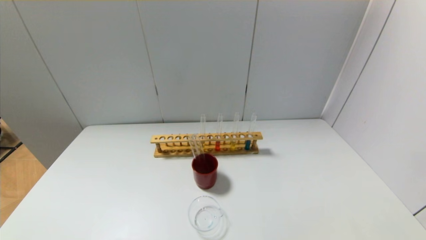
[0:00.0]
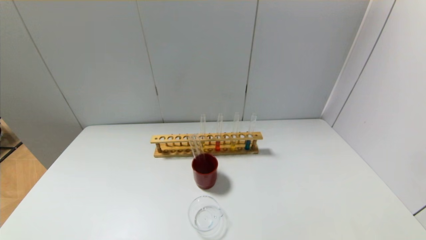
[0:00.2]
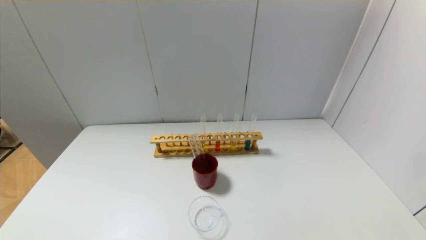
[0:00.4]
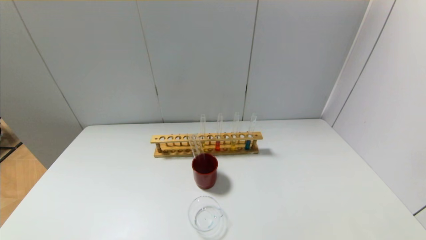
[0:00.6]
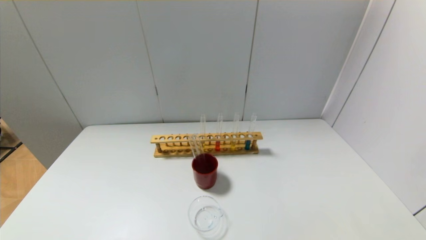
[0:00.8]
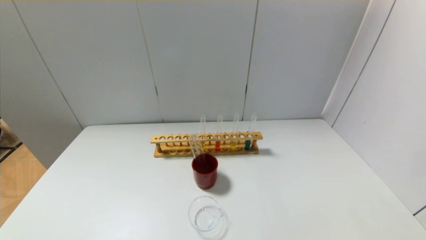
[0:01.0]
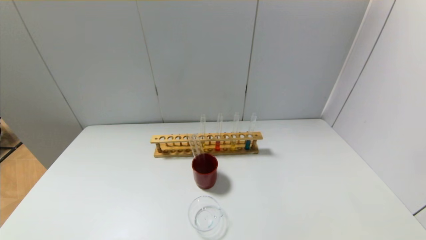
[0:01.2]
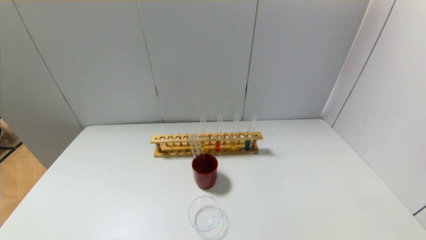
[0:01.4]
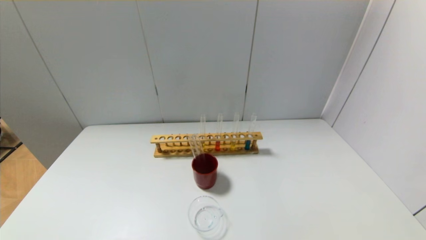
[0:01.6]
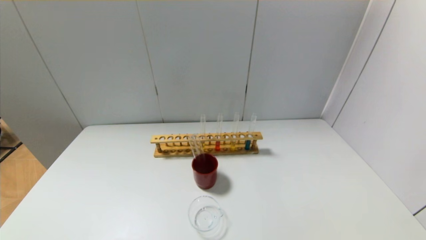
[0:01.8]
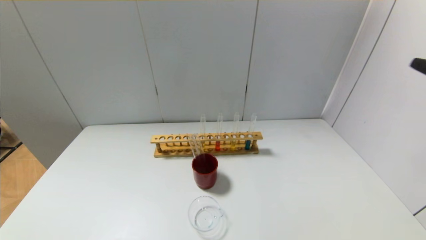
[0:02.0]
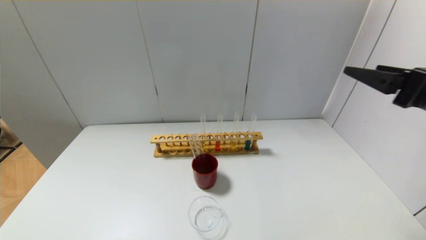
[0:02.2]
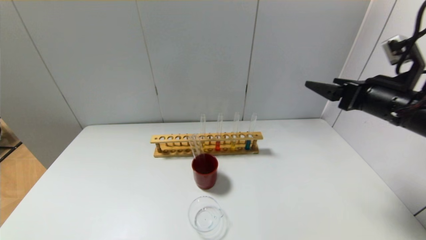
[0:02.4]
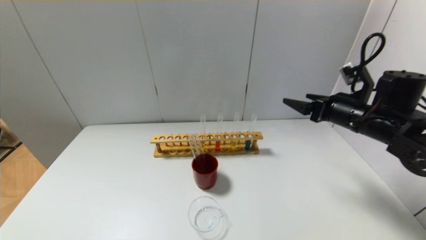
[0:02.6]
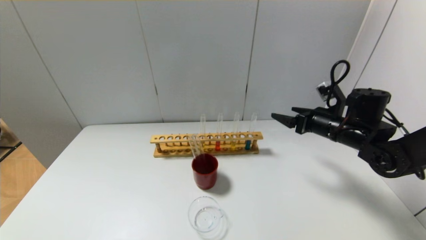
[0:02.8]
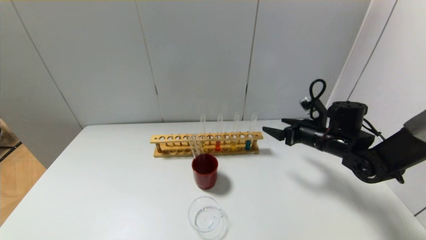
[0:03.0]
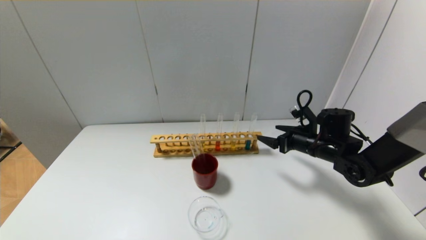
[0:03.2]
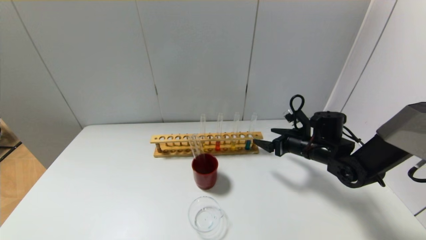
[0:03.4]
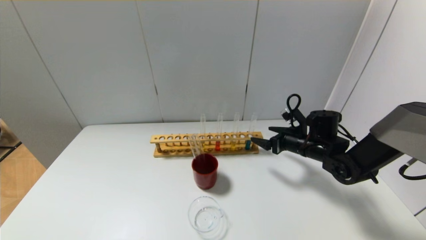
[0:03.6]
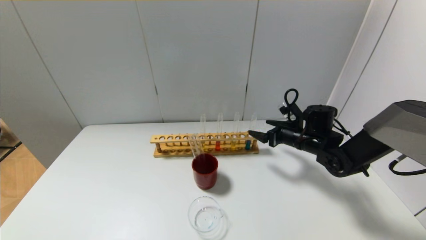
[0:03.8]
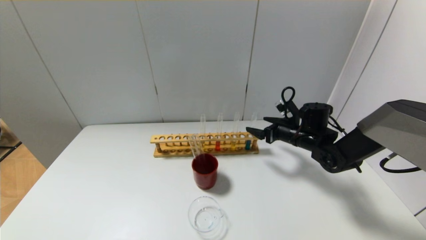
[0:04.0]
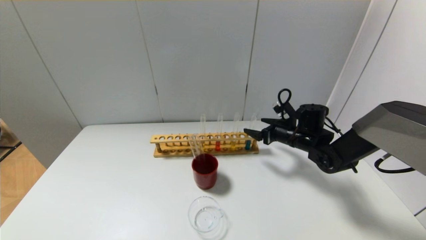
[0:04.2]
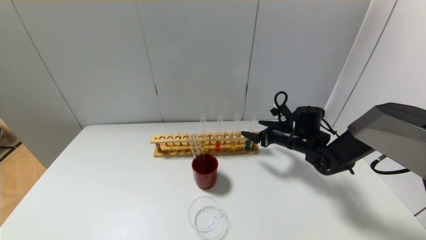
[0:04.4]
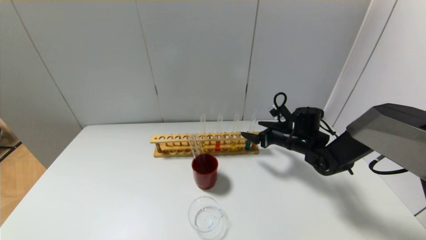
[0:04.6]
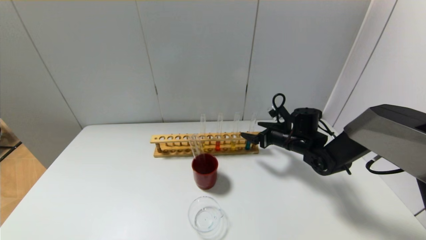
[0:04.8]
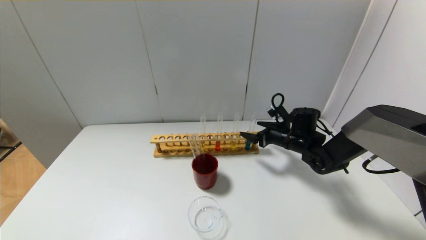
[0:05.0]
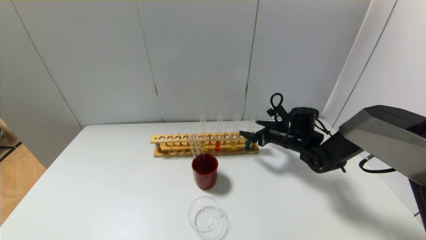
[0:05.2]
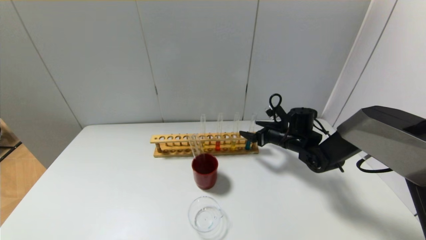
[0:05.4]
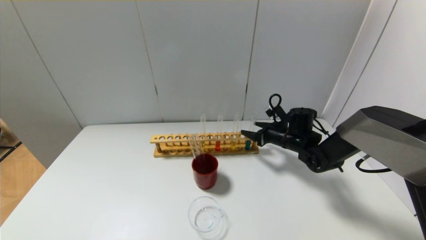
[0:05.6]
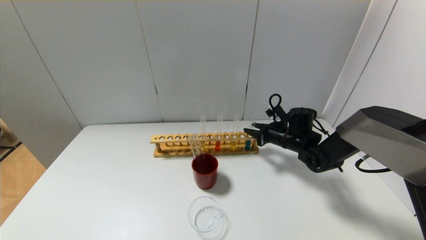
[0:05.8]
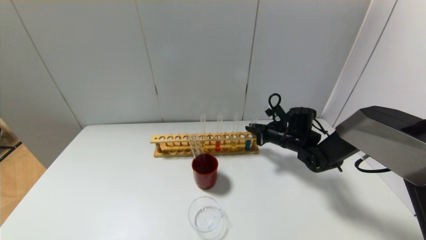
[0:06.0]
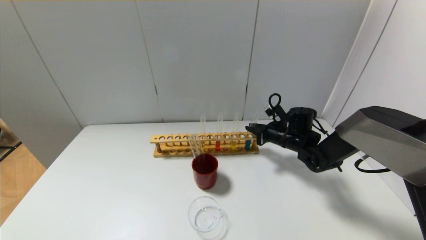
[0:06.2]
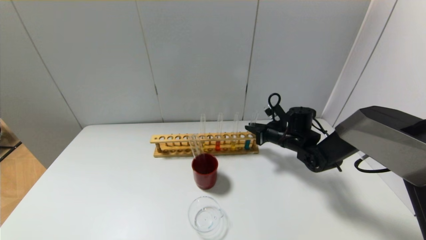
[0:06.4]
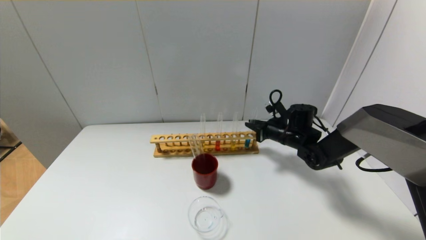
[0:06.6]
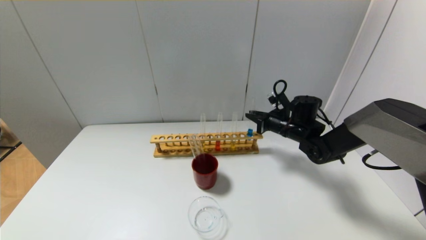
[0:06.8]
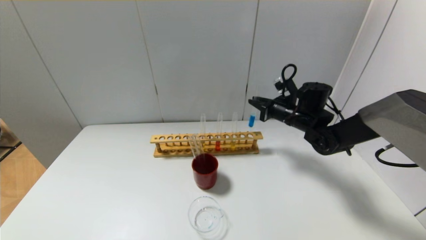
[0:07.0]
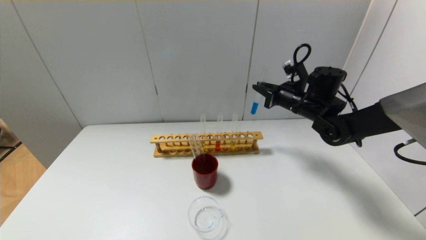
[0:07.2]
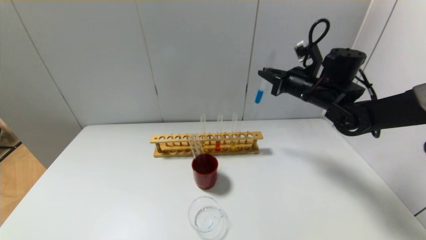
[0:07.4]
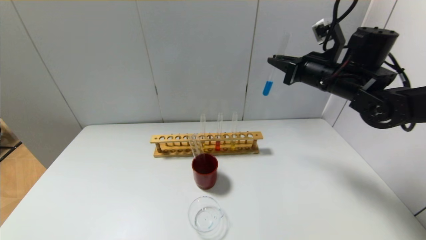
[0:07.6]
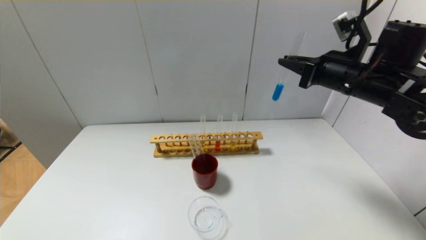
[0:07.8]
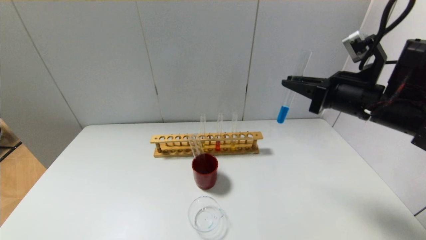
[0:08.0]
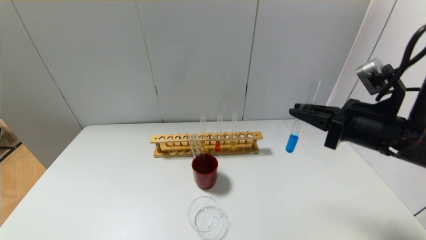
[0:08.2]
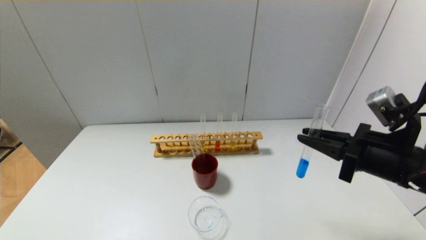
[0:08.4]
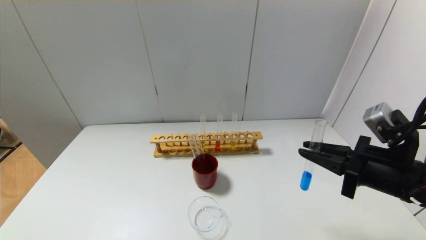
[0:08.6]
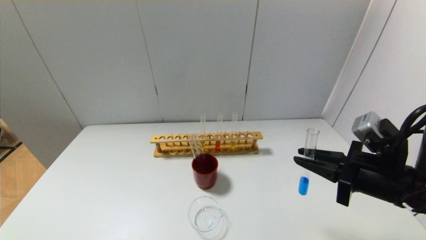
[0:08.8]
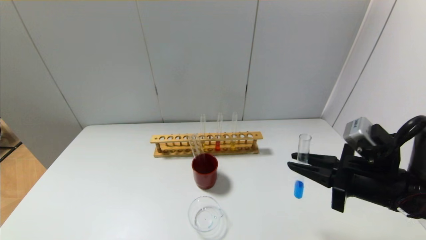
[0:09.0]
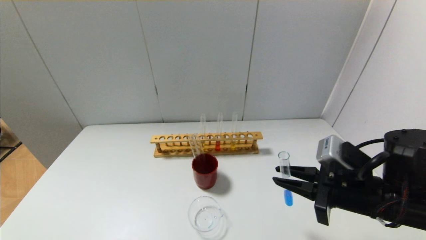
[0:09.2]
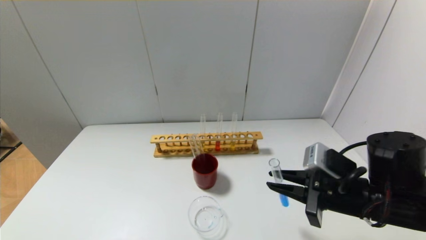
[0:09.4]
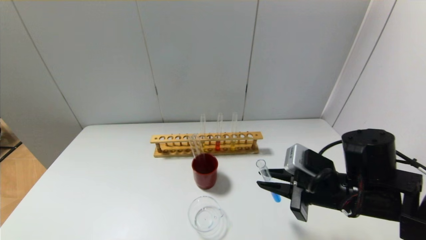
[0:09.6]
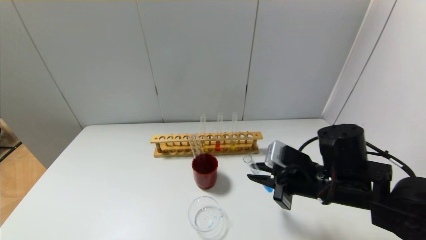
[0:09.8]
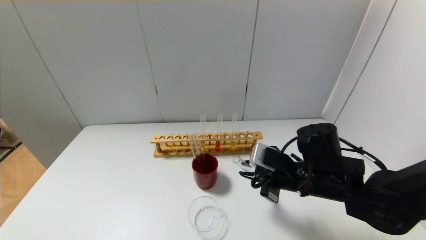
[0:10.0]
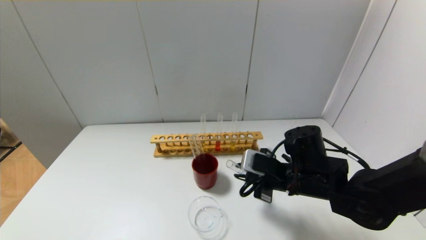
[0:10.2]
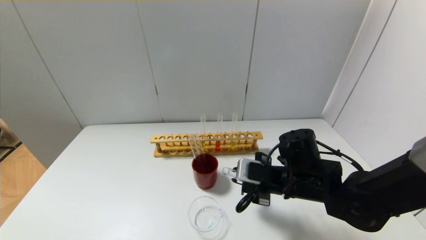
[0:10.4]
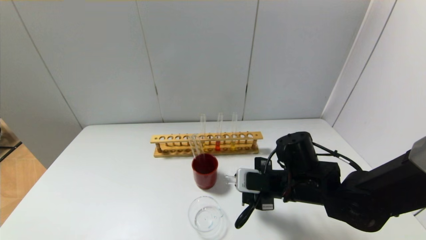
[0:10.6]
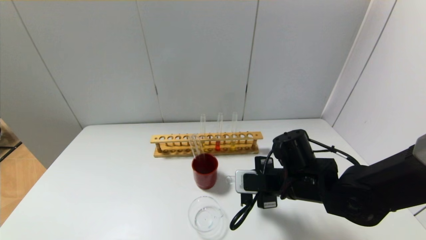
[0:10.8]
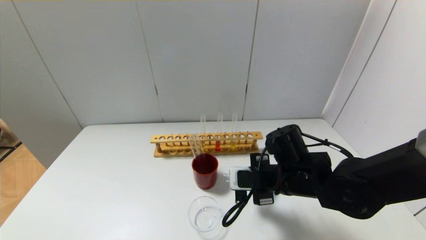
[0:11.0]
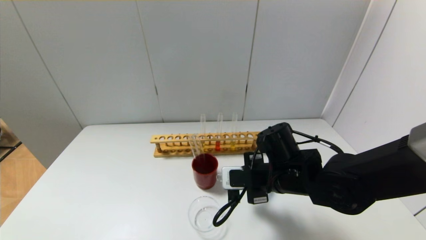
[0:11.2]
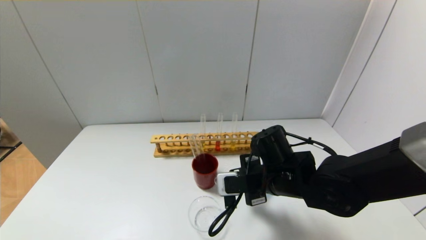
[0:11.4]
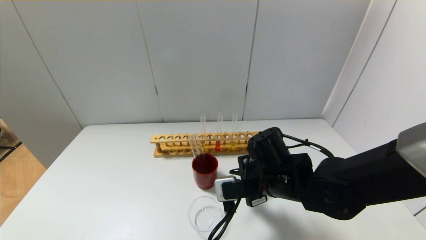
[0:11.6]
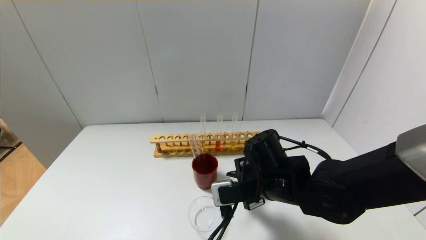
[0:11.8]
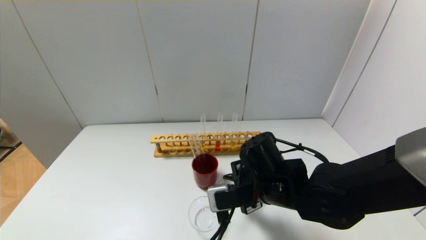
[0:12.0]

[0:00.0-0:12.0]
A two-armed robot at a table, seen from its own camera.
Step, 0:00.0 to 0:06.4: Grasp the blue reagent with the right gripper.
0:01.6 to 0:03.0: The right gripper shifts roughly 40 cm forward and downward.
0:03.0 to 0:04.4: The right gripper ends up about 10 cm from where it was.
0:04.4 to 0:06.0: The right gripper closes.
0:06.0 to 0:07.6: The right gripper moves upward, about 20 cm.
0:07.6 to 0:09.0: The right gripper shifts about 20 cm backward and downward.
0:09.0 to 0:10.4: The right gripper heads to the left, forward and downward, covering about 15 cm.
0:10.4 to 0:12.0: The right gripper is displaced to the left by roughly 5 cm.

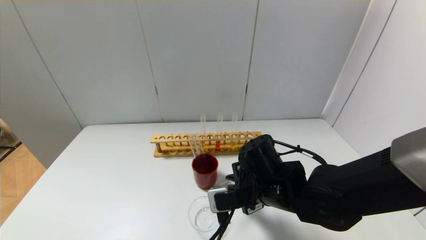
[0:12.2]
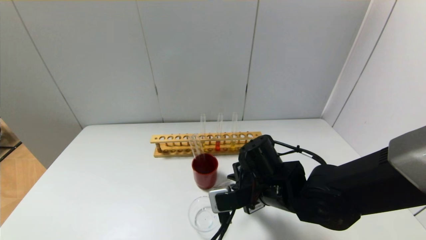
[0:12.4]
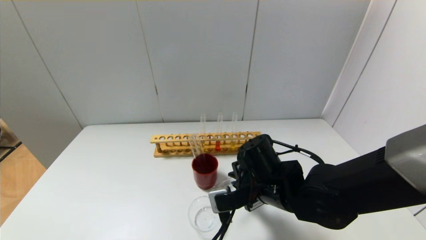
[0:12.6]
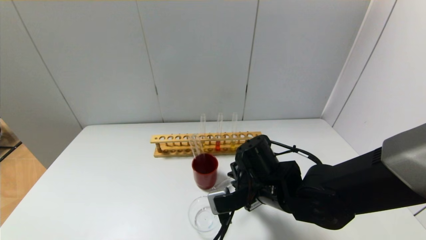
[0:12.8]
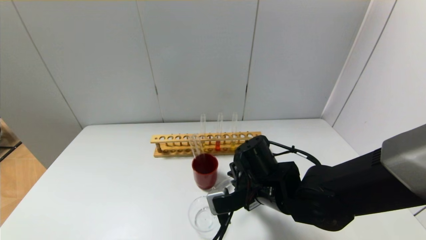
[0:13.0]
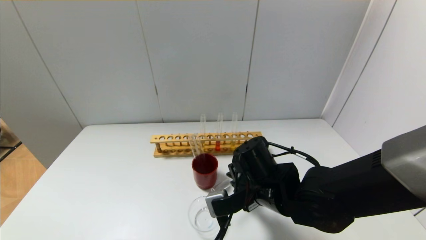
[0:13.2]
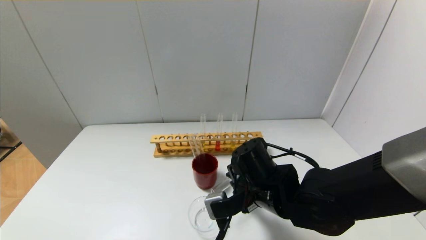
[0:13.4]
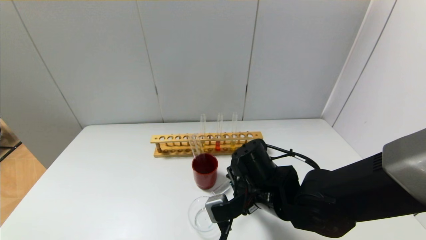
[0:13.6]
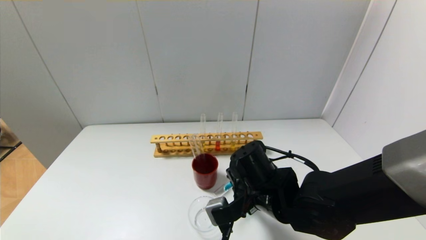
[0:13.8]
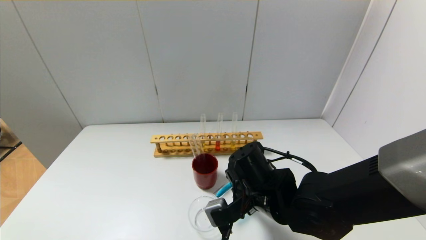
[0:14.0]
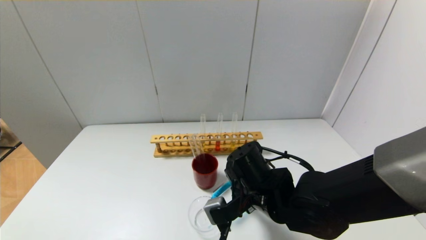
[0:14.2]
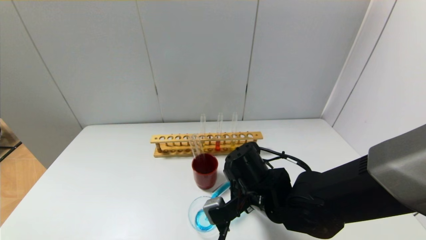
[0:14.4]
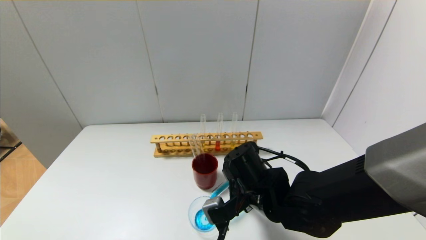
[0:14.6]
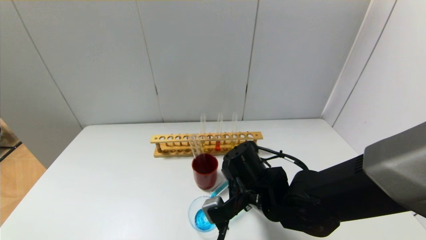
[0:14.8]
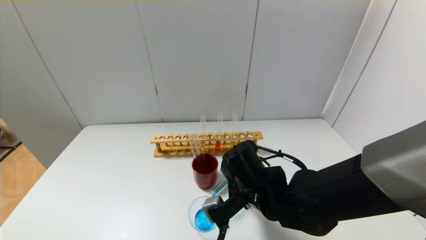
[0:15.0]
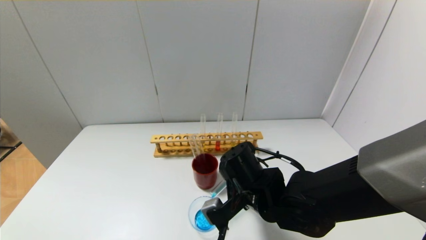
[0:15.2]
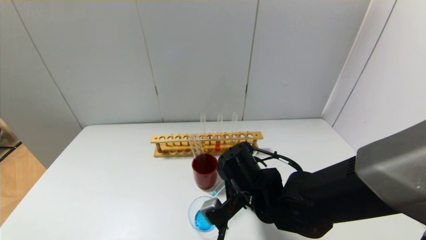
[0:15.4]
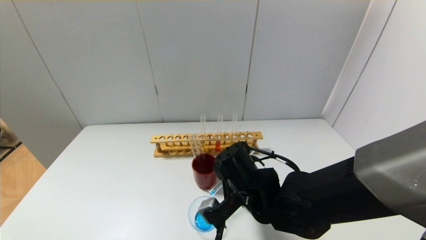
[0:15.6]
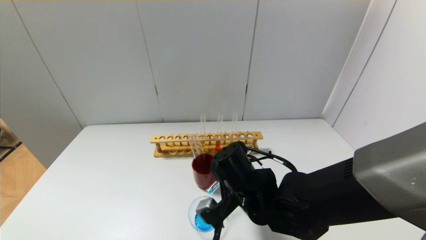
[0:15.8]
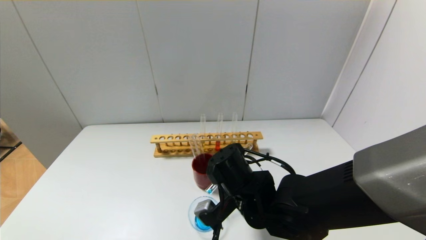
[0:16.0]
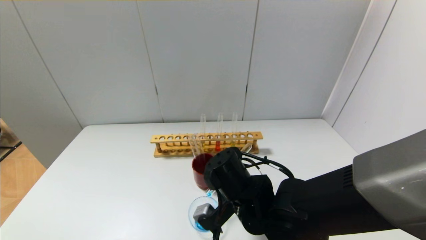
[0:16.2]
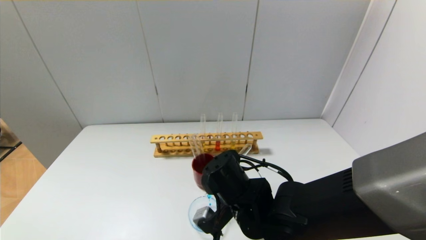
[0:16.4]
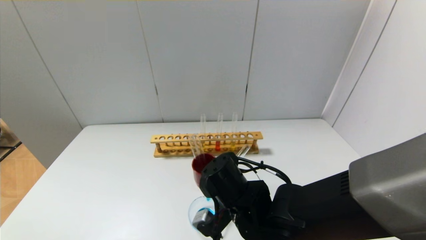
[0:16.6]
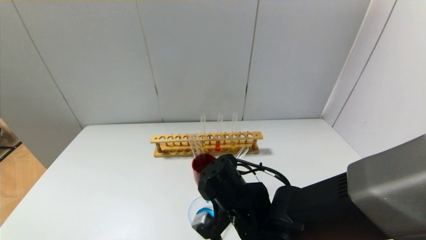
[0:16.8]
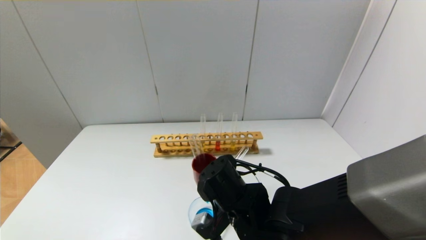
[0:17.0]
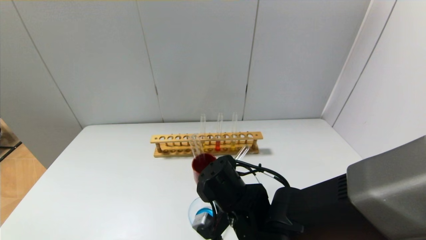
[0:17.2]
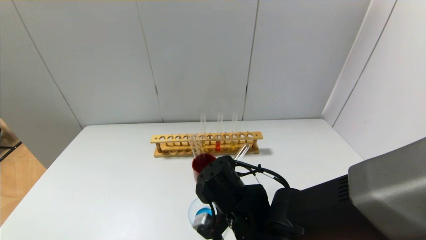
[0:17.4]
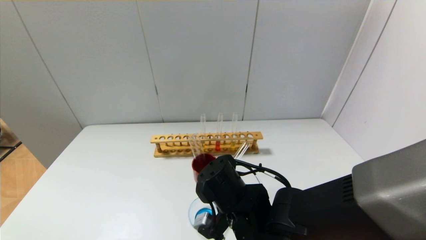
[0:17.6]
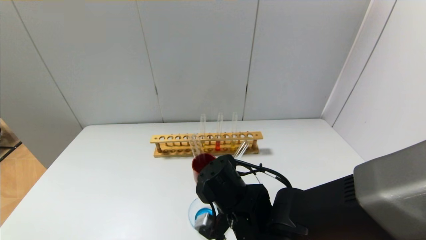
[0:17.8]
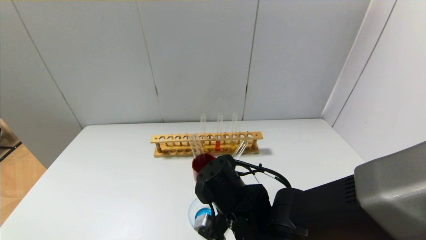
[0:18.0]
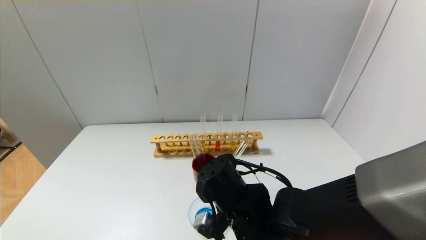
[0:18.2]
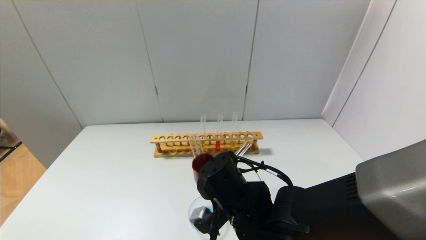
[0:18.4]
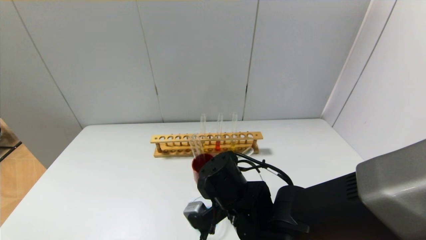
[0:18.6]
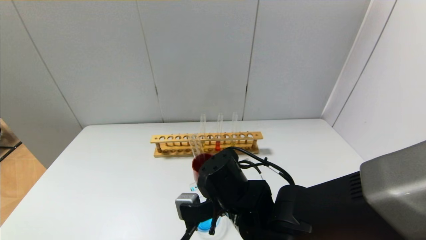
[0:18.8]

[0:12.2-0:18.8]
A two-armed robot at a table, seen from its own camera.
Step, 0:12.2 to 0:18.6: Pour the blue reagent into the graduated cylinder with the right gripper.
0:12.2 to 0:13.8: There are only small adjustments of the grippers.
0:13.8 to 0:15.4: The grippers stay close to where they were, moving slightly.
0:15.4 to 0:17.2: There are only small adjustments of the grippers.
